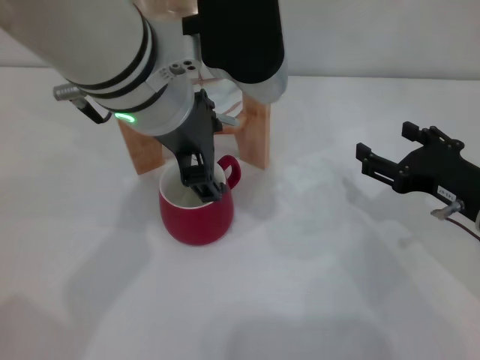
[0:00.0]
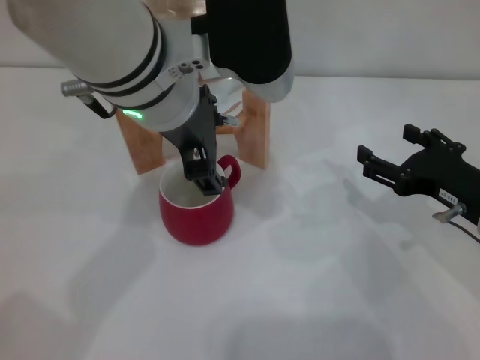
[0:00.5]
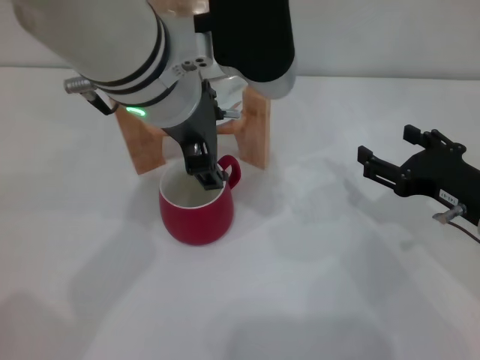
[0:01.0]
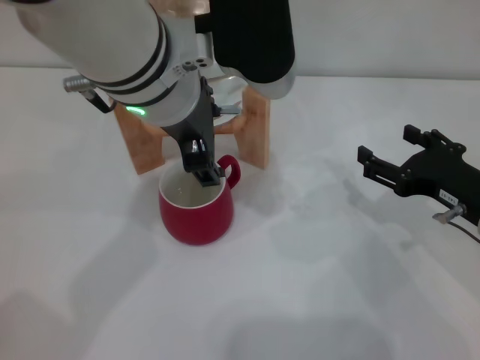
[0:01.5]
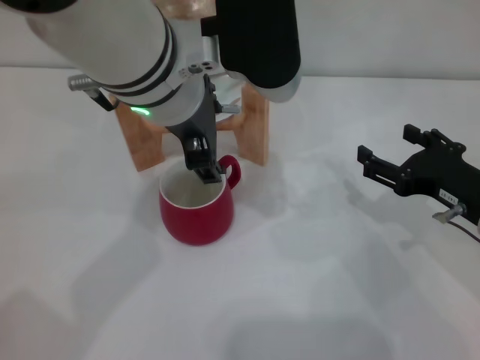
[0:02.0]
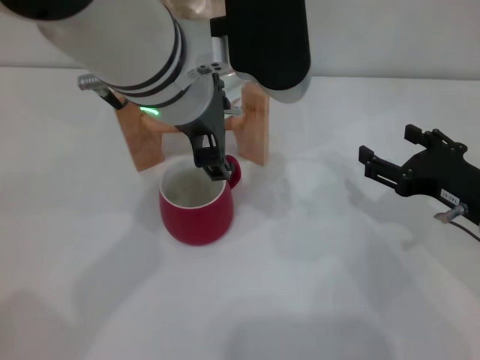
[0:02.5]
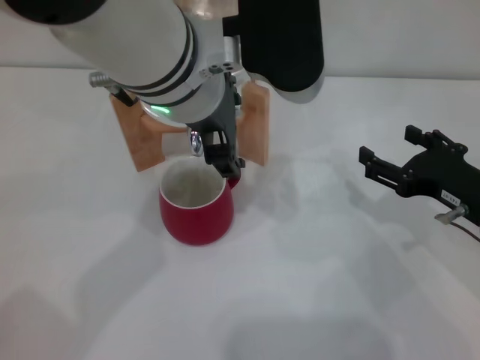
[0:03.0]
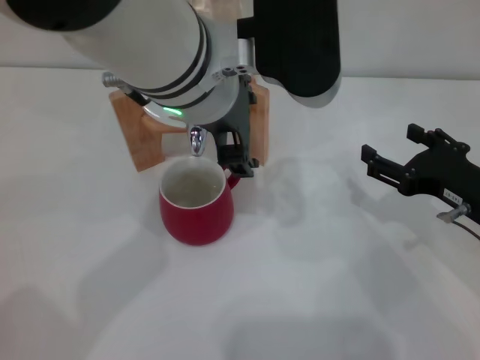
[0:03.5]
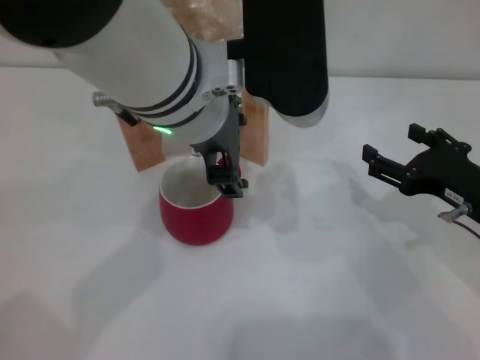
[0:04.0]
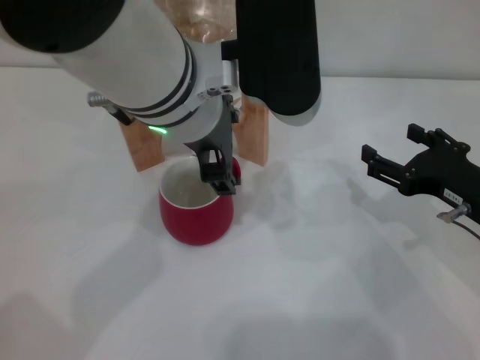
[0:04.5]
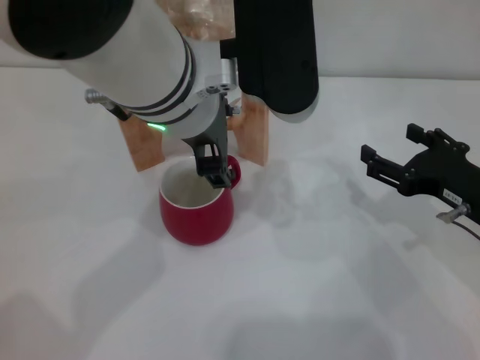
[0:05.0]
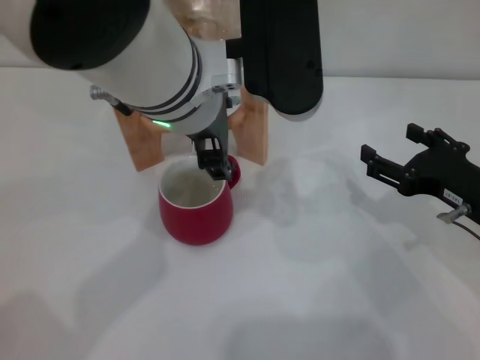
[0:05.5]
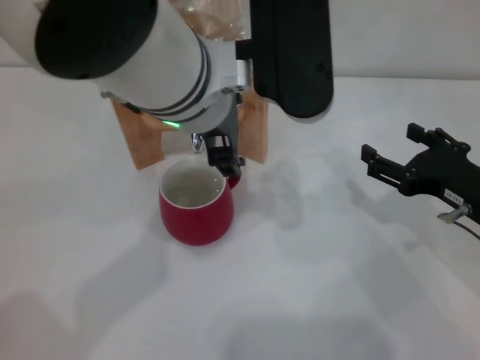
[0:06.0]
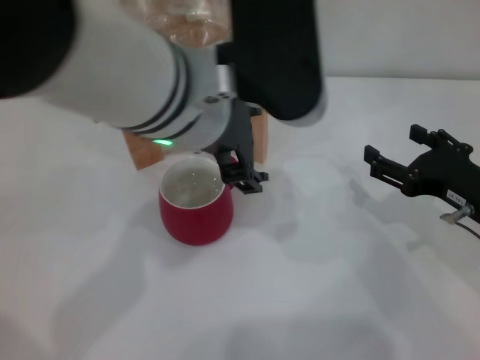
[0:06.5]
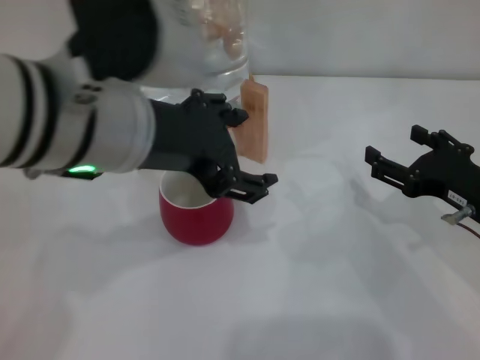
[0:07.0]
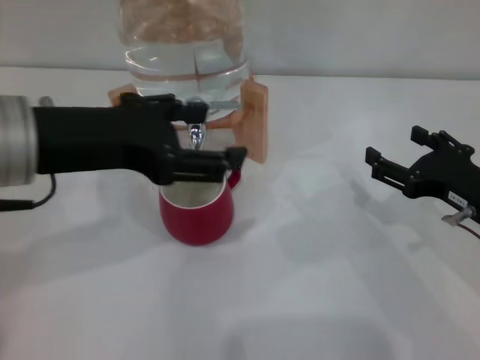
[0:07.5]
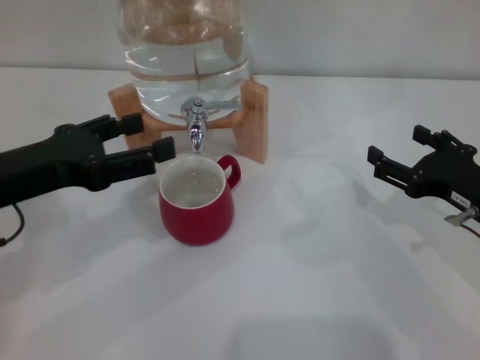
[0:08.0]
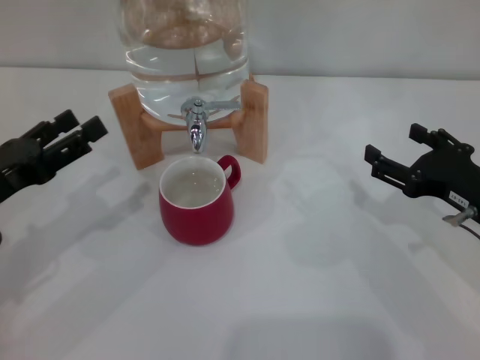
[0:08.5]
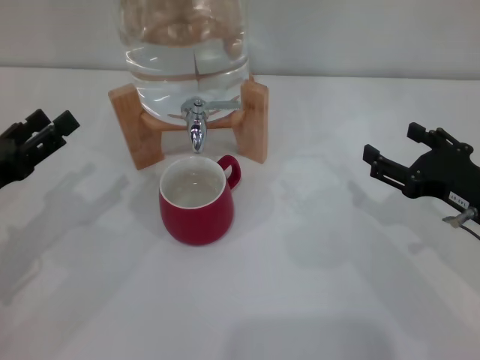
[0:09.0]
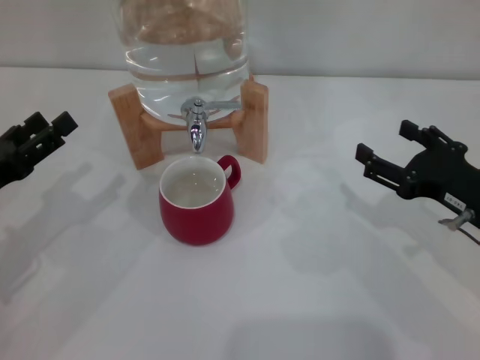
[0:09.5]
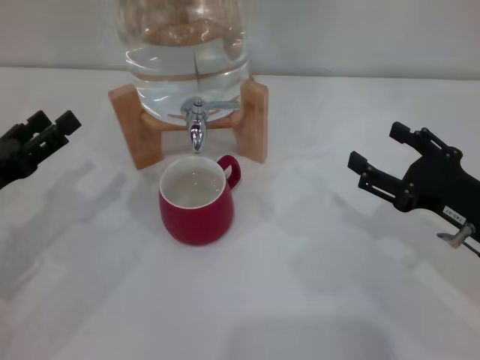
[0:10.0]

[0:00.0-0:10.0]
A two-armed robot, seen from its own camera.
Task of the whole recording: the right gripper pick up the red cup and place it horizontally under the faucet, the left gripper turn on the faucet to fill the cup, and then turn off the faucet.
Step, 0:00.0 to 0:06.5: Close the dispenser valve with the left gripper.
0:00.0 to 0:06.0: The grippers stay close to where they were, moving slightly.
0:06.0 to 0:08.0: The left gripper shifts roughly 25 cm to the left and downward.
0:08.0 to 0:10.0: The left gripper heads downward and to the left, covering some 10 cm.
